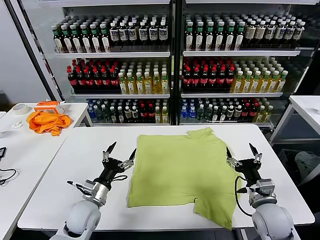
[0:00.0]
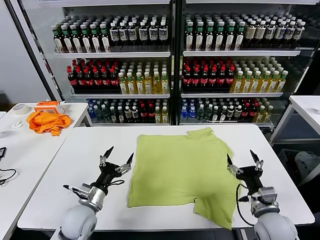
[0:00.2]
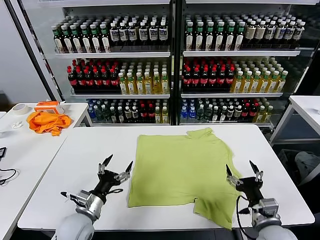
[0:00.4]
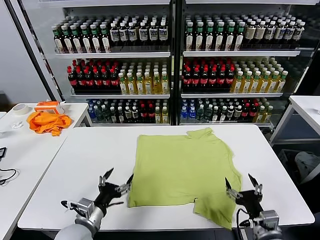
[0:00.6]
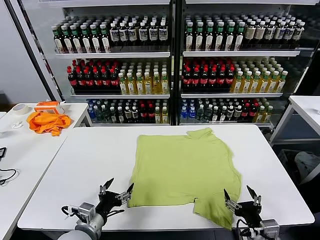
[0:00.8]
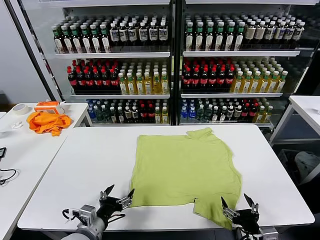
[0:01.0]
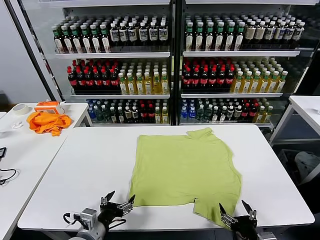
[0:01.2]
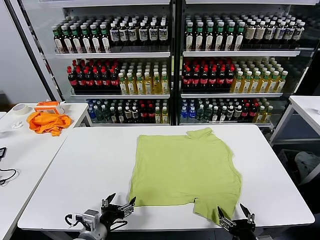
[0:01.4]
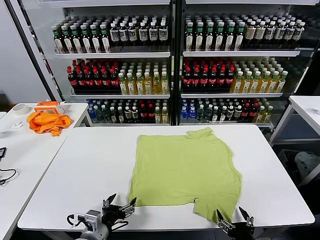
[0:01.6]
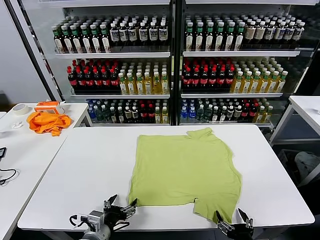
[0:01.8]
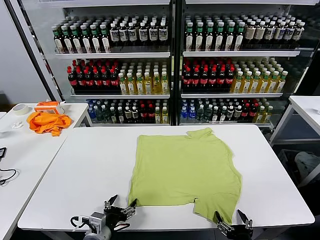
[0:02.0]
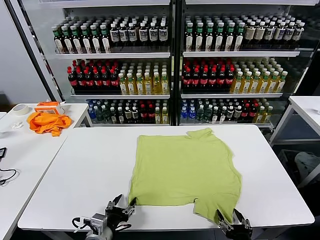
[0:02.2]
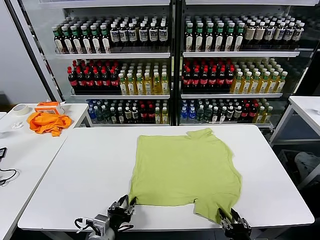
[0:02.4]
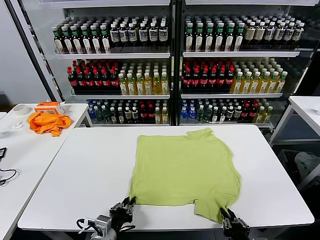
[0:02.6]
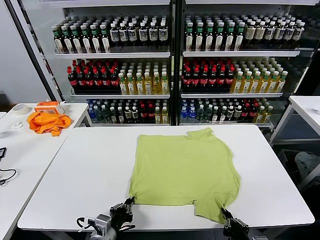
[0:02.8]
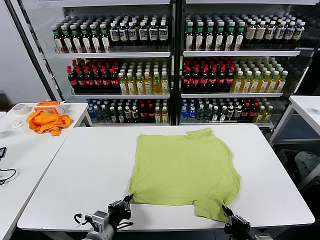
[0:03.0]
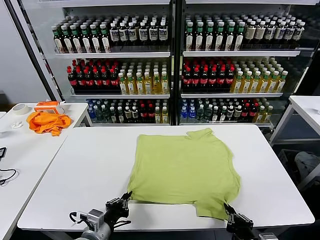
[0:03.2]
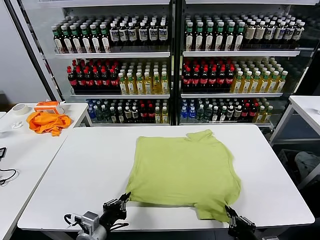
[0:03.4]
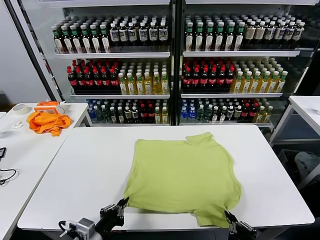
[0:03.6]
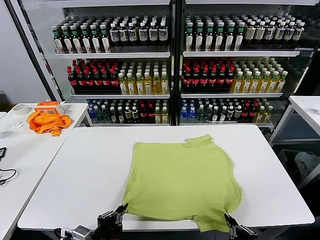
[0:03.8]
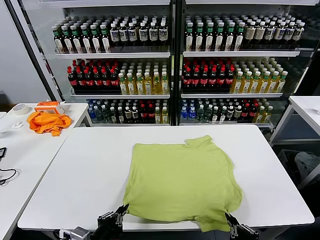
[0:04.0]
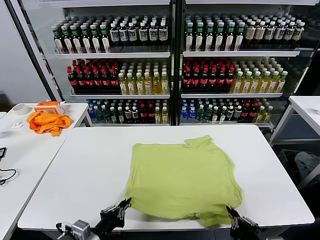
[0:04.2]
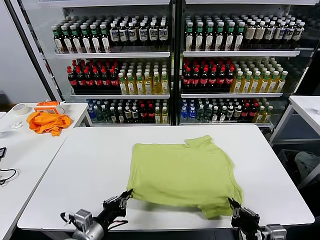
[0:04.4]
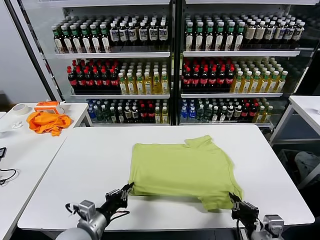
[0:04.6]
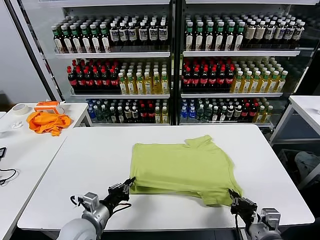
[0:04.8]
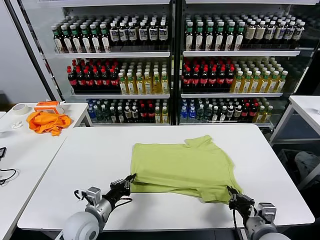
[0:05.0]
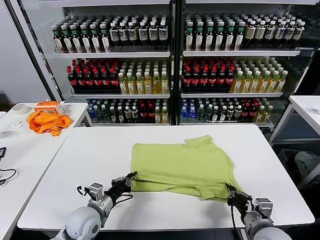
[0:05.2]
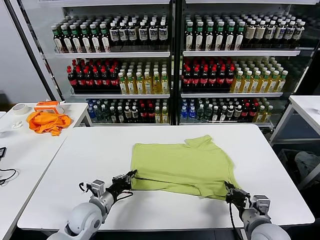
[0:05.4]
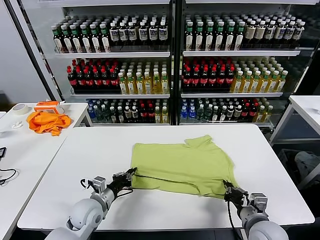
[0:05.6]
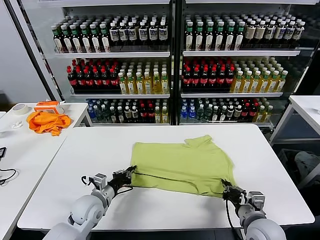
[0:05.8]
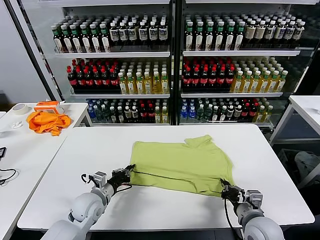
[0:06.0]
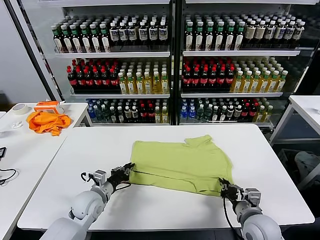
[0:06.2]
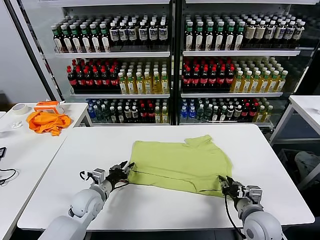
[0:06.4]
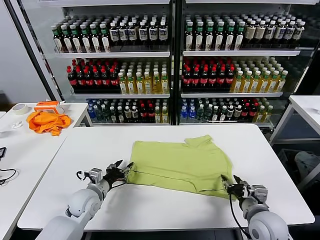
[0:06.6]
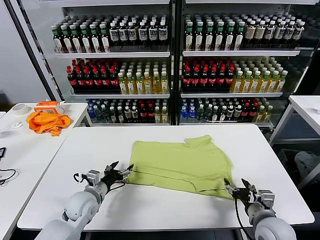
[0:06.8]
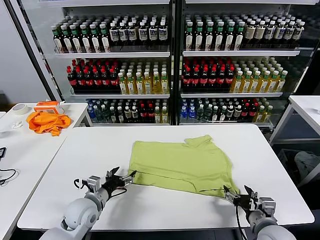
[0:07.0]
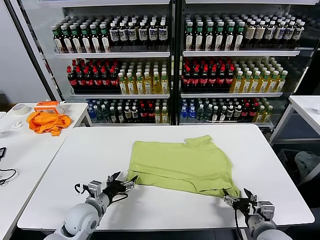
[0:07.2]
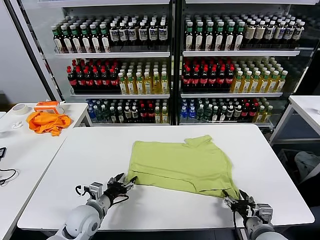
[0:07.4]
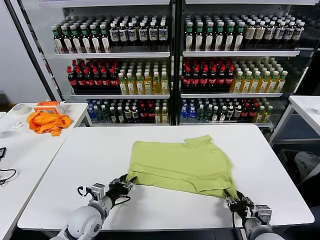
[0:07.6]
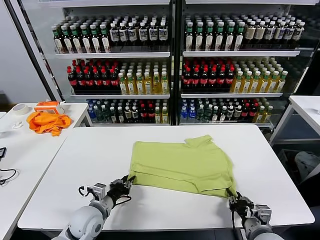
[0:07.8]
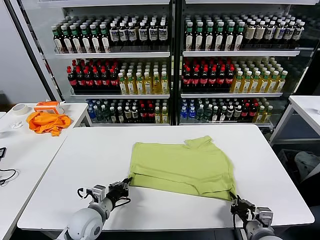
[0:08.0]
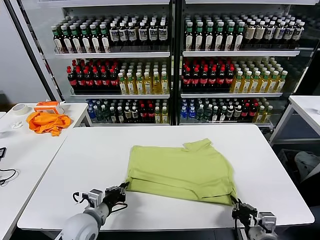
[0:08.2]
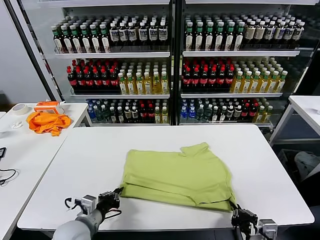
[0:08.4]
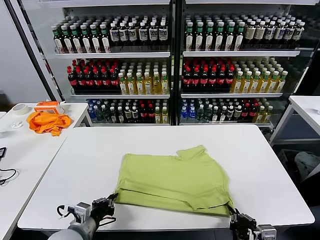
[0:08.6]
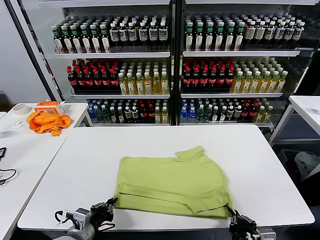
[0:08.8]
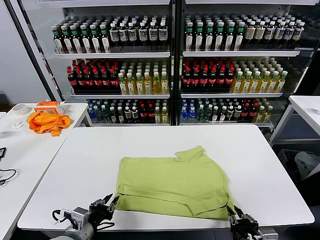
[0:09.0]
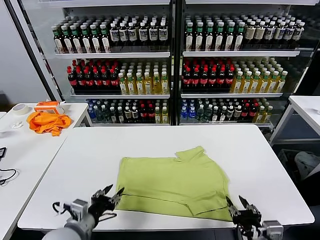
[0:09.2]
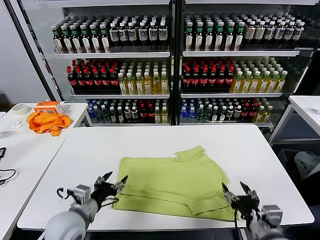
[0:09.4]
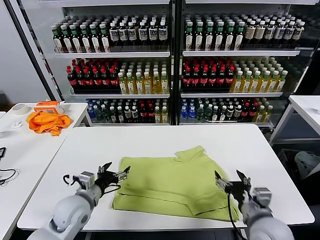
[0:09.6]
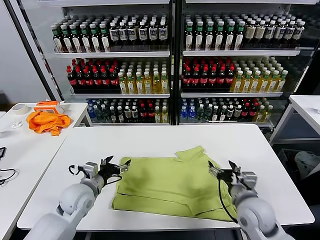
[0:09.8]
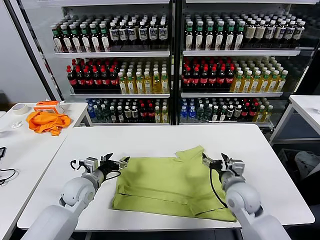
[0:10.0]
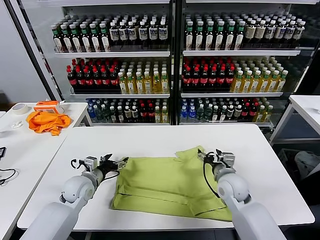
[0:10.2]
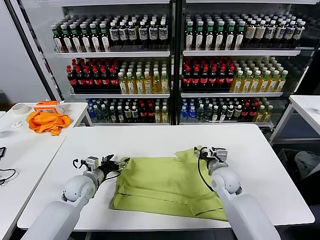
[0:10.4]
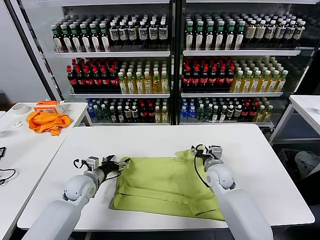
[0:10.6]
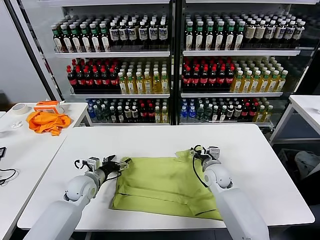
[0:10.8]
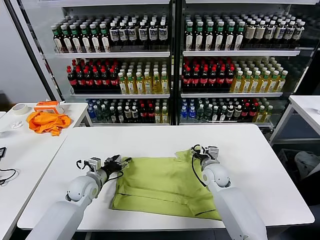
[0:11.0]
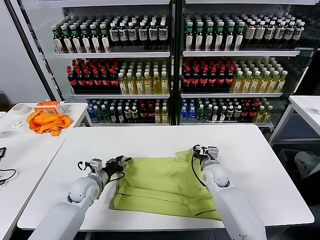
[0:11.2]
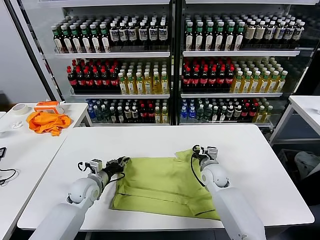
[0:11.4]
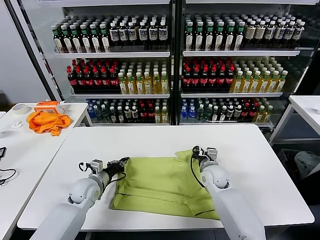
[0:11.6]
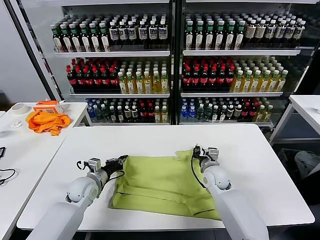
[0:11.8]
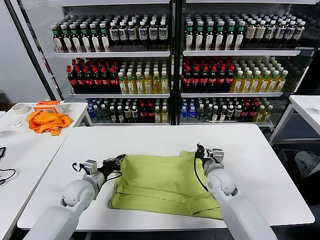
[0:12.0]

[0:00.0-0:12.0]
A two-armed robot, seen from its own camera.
Task of the whole recording: fold and organize the clothes.
Step, 0:00.0 to 0:02.6: use both grippers simultaneously to clamp the lower edge of the clothing fabric.
Step, 0:03.0 to 0:06.4: use both grippers to drag the lower edge of the fabric forward and fold it over the upper edge.
Step, 0:06.8 to 0:09.0: Drag the clothes downward with both gripper.
Step, 0:09.2 to 0:11.4: use both grippers simultaneously to clamp the upper edge of the clothing fabric.
0:01.6 to 0:03.0: The right gripper closes. The left gripper closes.
0:03.0 to 0:04.4: The right gripper moves roughly 5 cm.
0:04.4 to 0:06.0: The left gripper travels forward by about 15 cm. Meanwhile the right gripper shifts roughly 10 cm forward.
0:06.0 to 0:07.6: The right gripper moves some 5 cm, and opens and closes again, while the left gripper is displaced backward by roughly 5 cm, and opens up.
0:07.6 to 0:09.0: Both grippers travel together backward and upward, about 10 cm.
0:09.0 to 0:10.4: Both grippers move forward, some 25 cm. The left gripper opens; the right gripper opens up.
0:10.4 to 0:12.0: The right gripper closes its fingers. The left gripper closes.

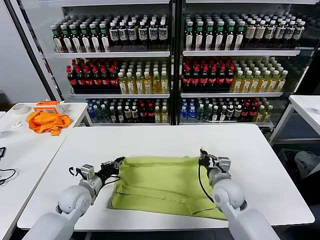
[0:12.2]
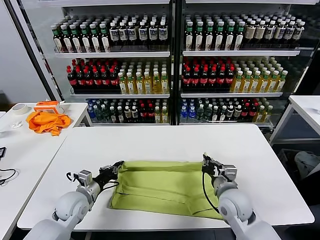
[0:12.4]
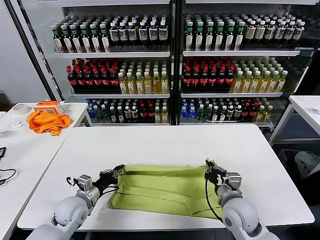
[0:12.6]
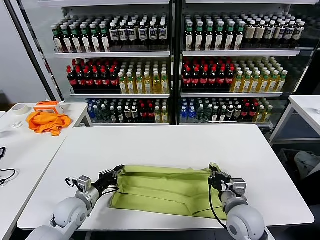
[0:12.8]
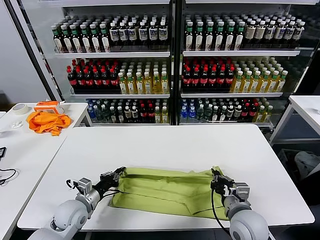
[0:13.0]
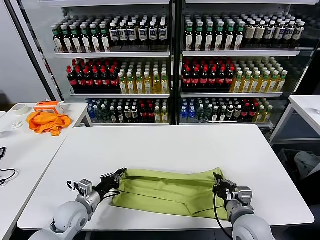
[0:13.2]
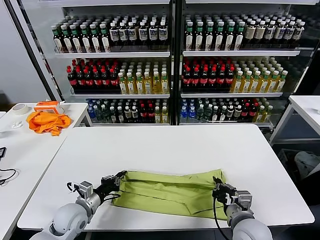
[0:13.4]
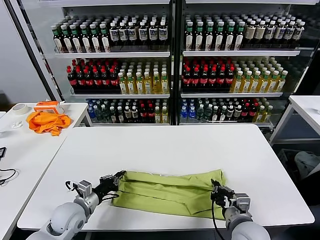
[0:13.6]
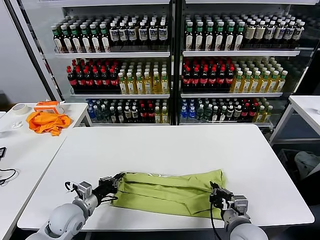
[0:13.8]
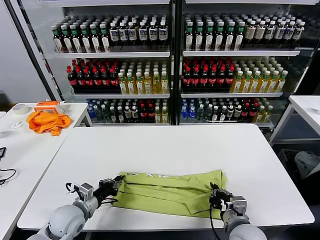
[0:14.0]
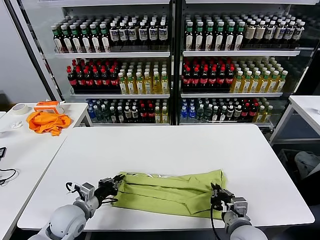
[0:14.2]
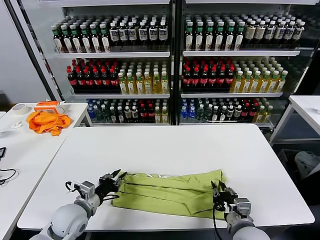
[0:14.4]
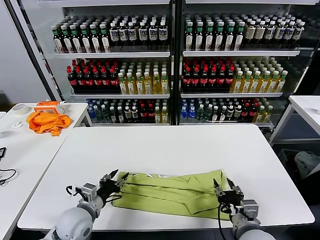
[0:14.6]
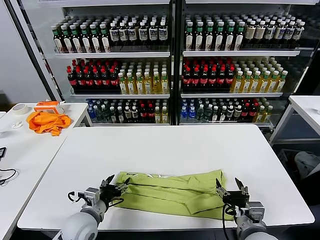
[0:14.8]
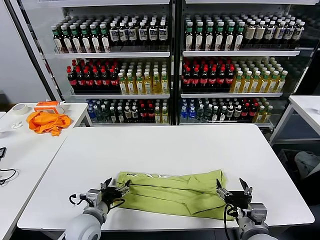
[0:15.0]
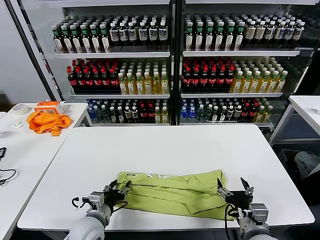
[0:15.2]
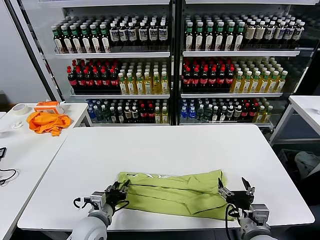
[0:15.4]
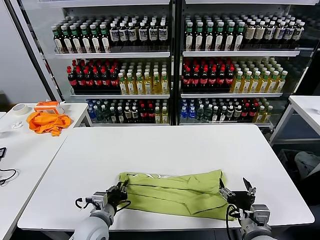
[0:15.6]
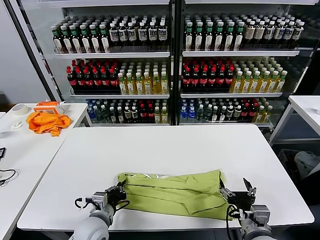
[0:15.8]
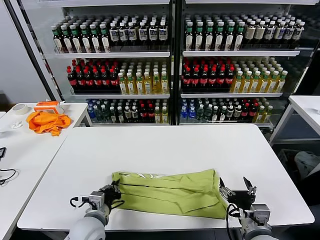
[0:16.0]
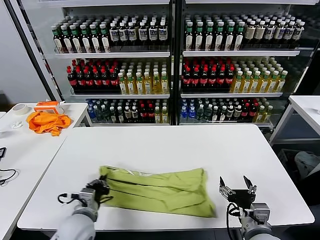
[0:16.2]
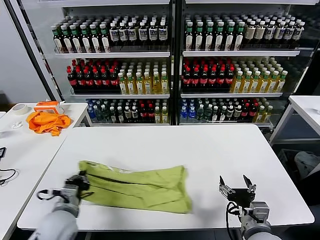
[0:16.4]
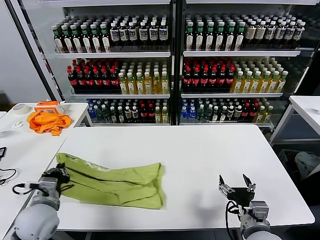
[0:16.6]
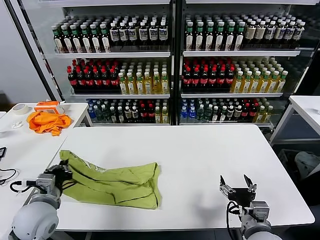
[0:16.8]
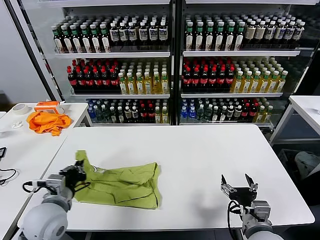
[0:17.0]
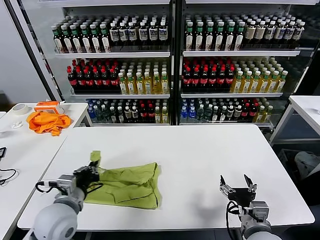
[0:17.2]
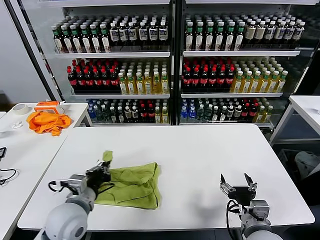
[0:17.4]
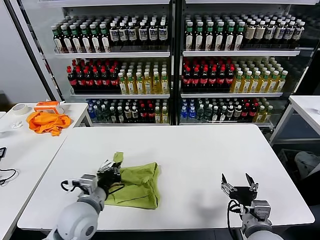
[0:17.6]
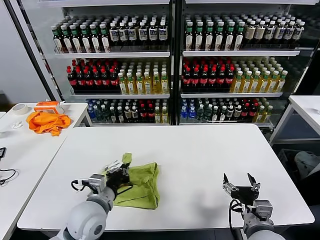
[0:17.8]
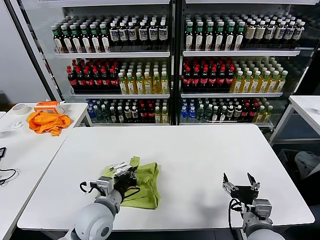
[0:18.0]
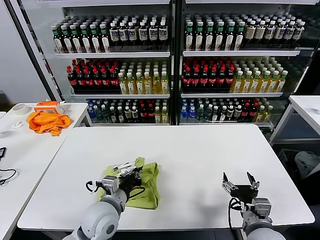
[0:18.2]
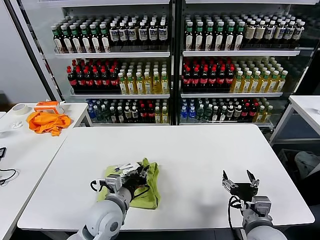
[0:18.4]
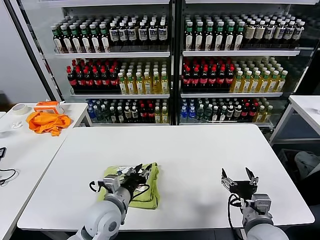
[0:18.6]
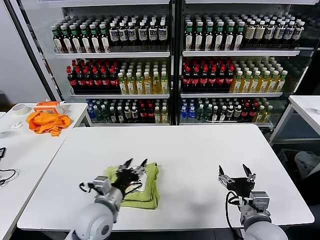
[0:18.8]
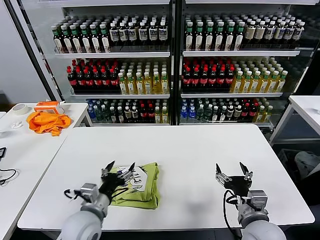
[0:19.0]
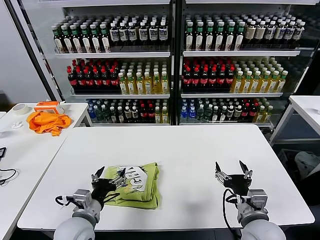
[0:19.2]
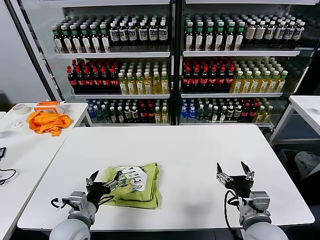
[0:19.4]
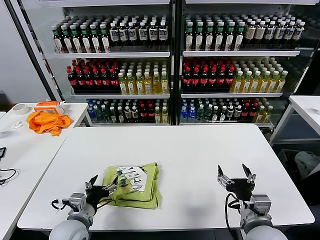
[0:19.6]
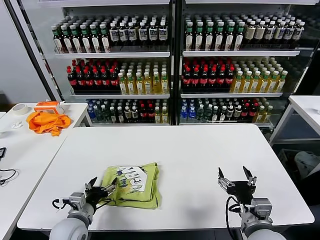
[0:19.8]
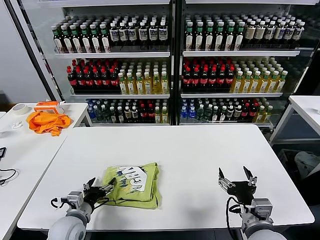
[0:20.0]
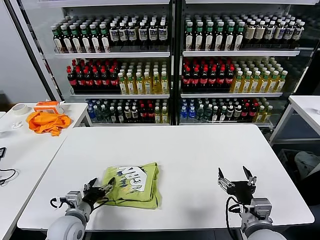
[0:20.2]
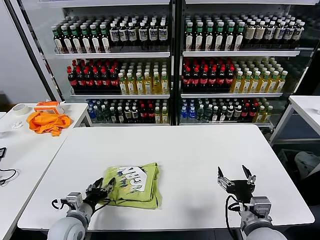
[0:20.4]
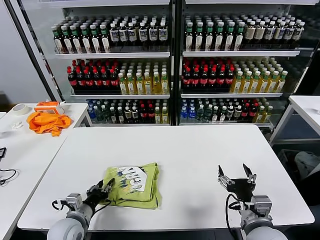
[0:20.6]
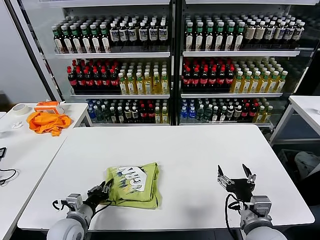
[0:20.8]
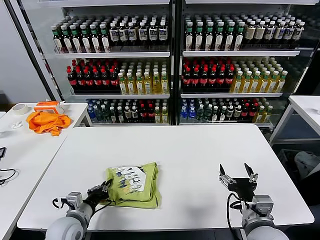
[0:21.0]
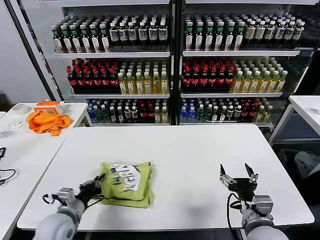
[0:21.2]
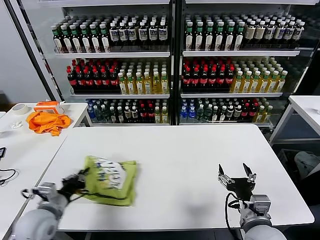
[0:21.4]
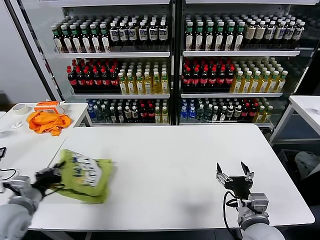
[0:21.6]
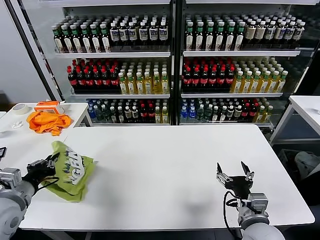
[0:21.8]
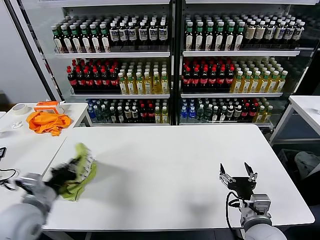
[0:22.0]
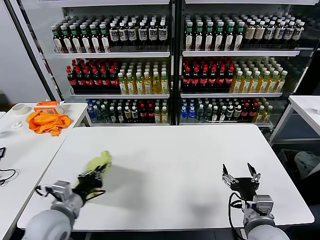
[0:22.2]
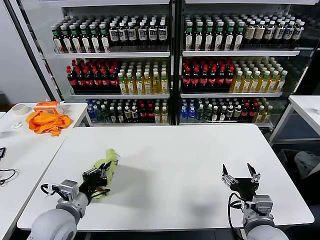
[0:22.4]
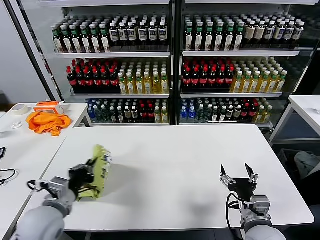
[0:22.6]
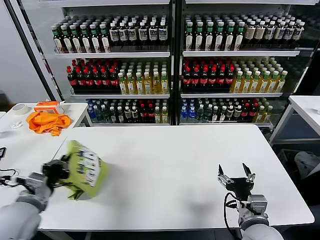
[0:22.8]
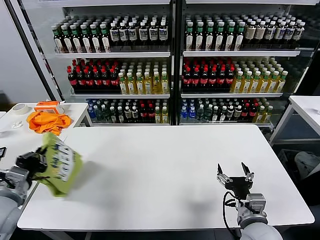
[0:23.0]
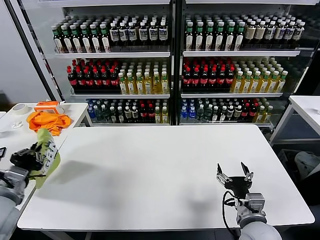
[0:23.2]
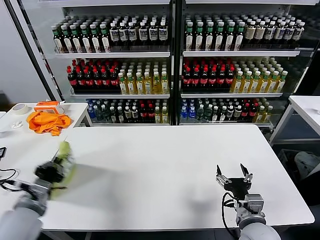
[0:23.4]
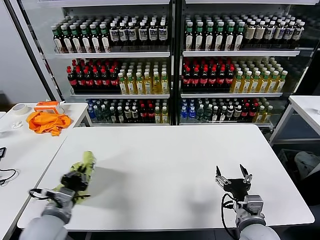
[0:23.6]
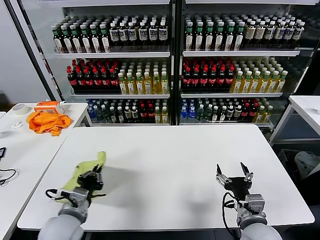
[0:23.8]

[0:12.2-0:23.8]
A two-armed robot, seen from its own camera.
Task of the whole recording: fold and organize the clothes.
Step, 0:12.2 to 0:14.4: use both grippers to drag the upper edge of the fabric backward and fold it over the lower edge.
Step, 0:14.6 to 0:15.6: use the left gripper to clamp the left edge of the fabric.
Step, 0:15.8 to 0:18.6: use the left gripper to drag the left edge of the fabric to the left and folds it over the right edge.
0:12.2 to 0:13.6: The left gripper moves backward, about 5 cm. Meanwhile the right gripper shifts roughly 10 cm backward.
0:13.6 to 0:15.0: The right gripper opens, while the left gripper shifts about 5 cm to the right, and opens.
0:15.0 to 0:16.6: The left gripper heads to the left and upward, covering roughly 10 cm, and closes its fingers.
0:16.6 to 0:18.0: The left gripper moves to the right, some 15 cm.
0:18.0 to 0:19.4: The left gripper heads to the left, covering roughly 5 cm, and opens.
0:19.4 to 0:21.0: The left gripper changes place by some 5 cm, and closes.
0:21.0 to 0:22.4: The left gripper shifts approximately 10 cm upward.
0:22.4 to 0:23.8: The left gripper moves some 15 cm to the left and comes back.
